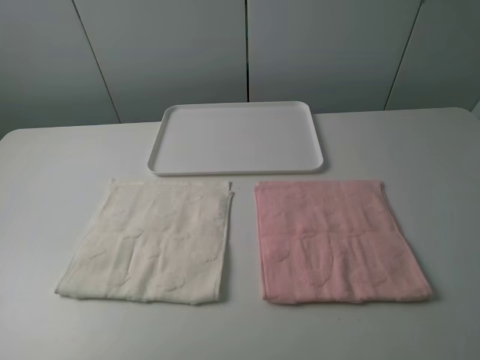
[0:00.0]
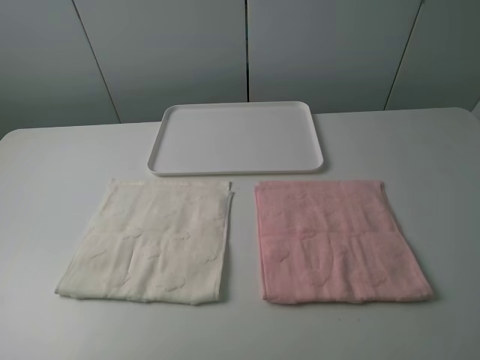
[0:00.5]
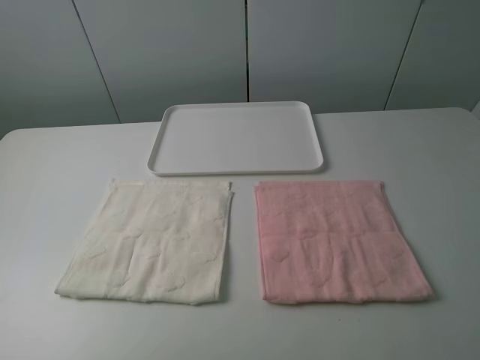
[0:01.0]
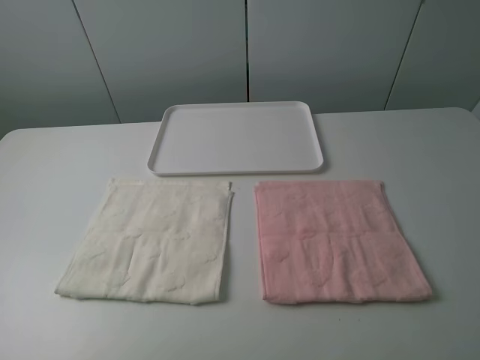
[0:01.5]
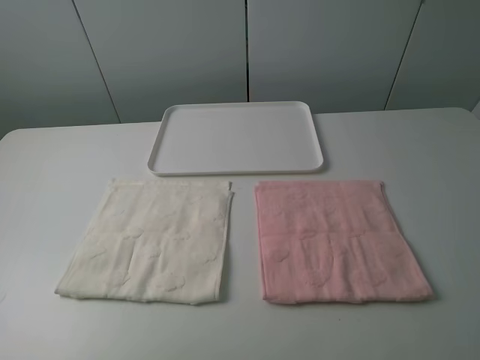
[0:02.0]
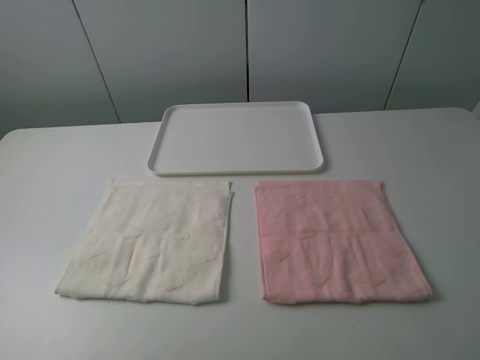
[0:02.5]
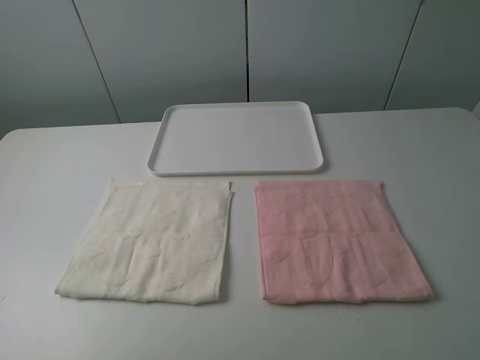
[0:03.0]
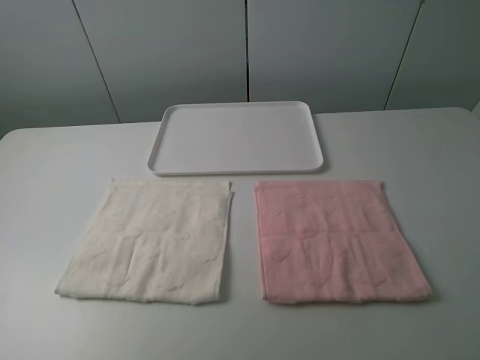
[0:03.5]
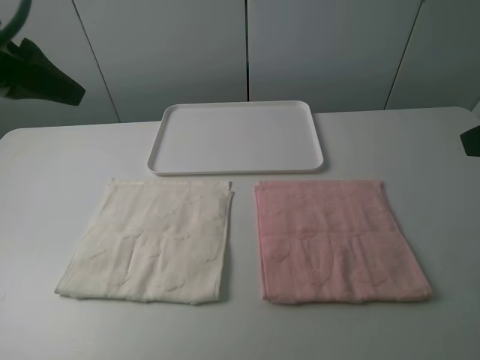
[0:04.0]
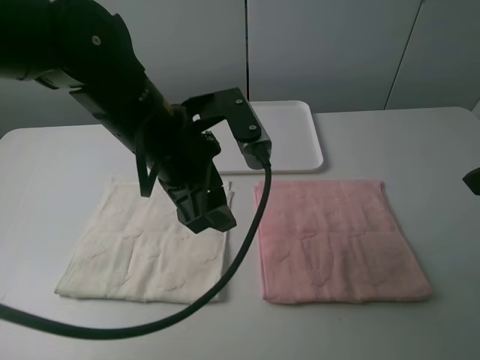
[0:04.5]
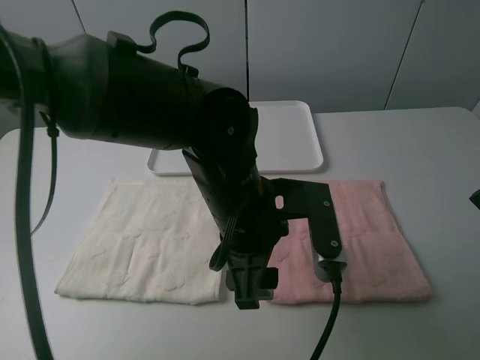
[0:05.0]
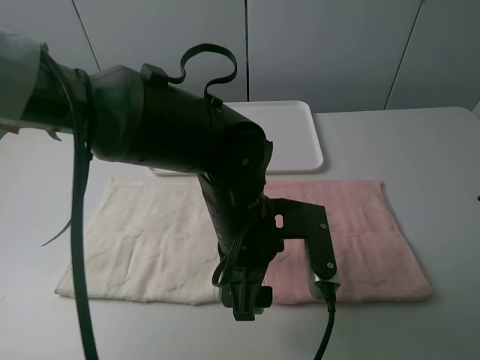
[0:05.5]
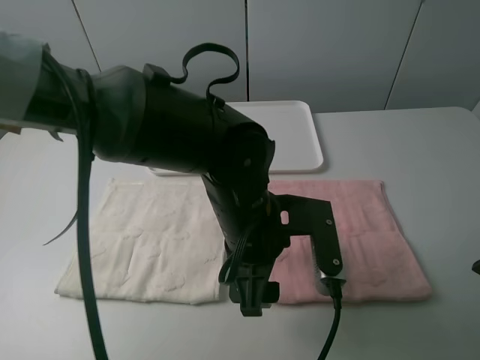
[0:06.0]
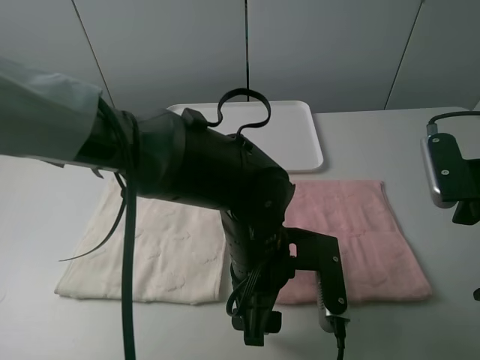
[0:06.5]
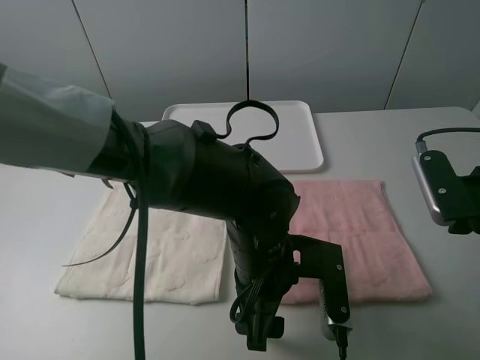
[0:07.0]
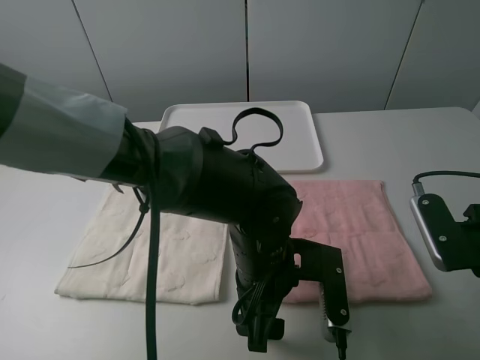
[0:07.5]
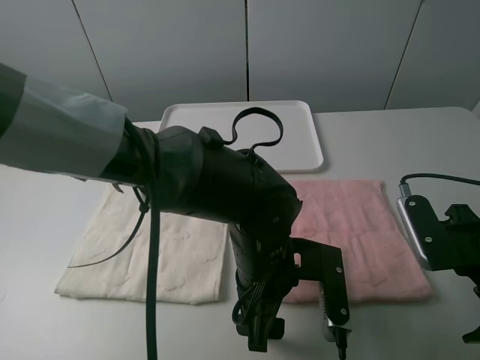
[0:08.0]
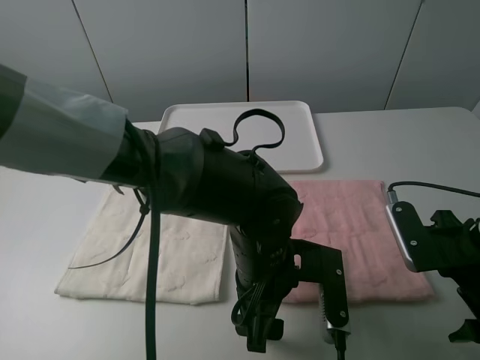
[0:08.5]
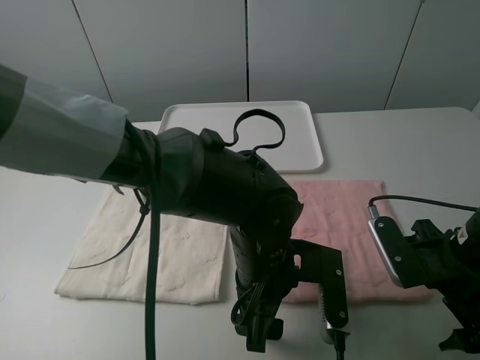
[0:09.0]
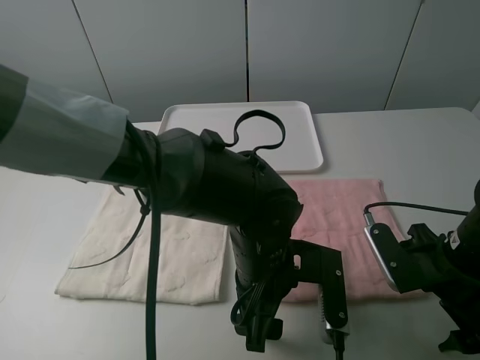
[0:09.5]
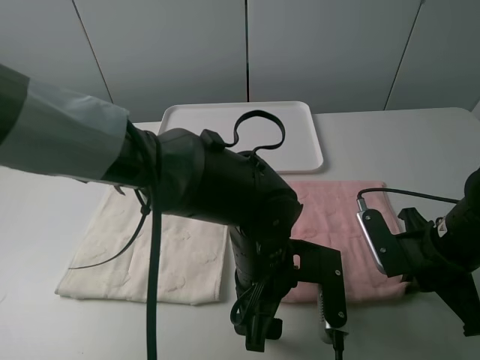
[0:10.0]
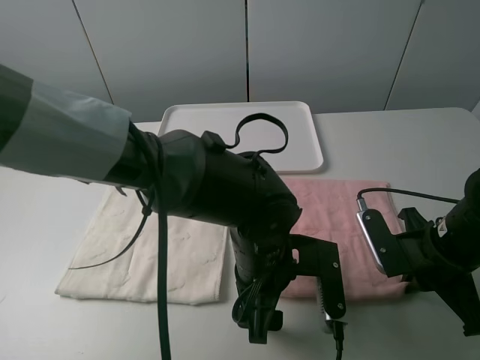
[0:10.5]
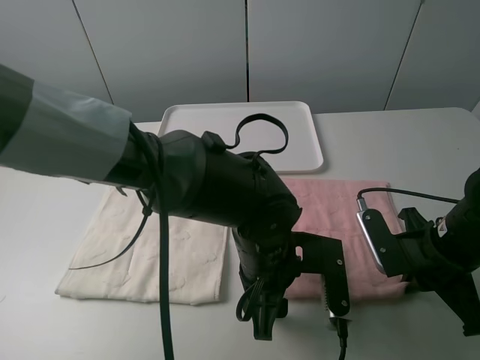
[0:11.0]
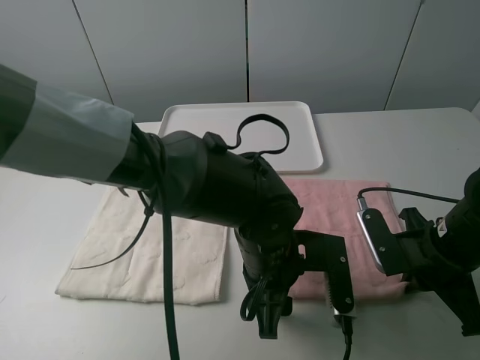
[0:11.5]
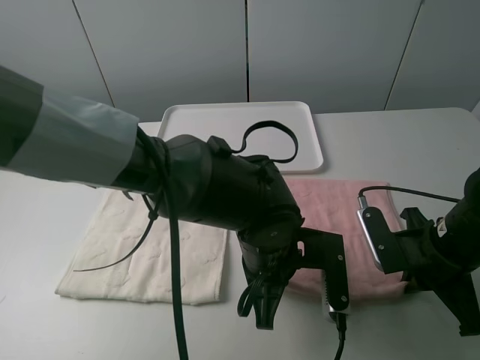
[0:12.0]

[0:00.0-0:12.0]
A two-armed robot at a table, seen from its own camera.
Task of the whole recording: fold one of the towels by two grippers and place it on the tray,then fold another towel by two grippers and place it on the folded towel.
Step, 0:00.0 to 0:11.5: Grasp the pink towel with the left gripper.
0:00.0 to 0:02.0: Both grippers stay about where they are.
0:02.0 to 0:04.0: The left gripper is displaced forward by approximately 25 cm.
0:04.0 to 0:06.0: The left gripper shifts approximately 30 cm to the right and downward. The right gripper heads downward, covering about 10 cm.
0:06.0 to 0:08.0: The right gripper travels downward by some 10 cm.
0:08.0 to 0:10.0: The right gripper moves downward, roughly 5 cm, and closes its fingers.
0:10.0 to 0:12.0: The left gripper closes up.

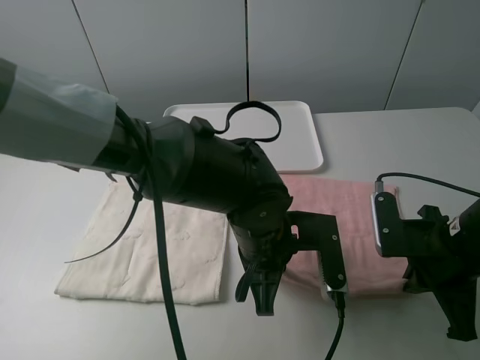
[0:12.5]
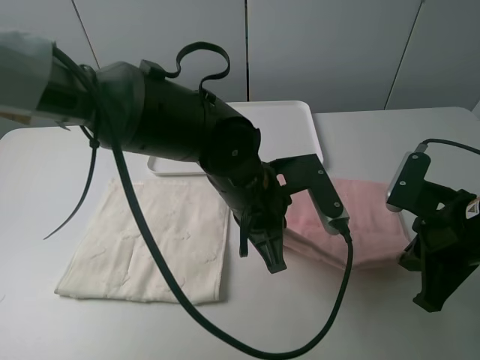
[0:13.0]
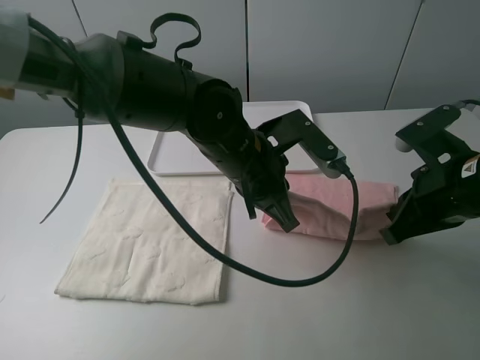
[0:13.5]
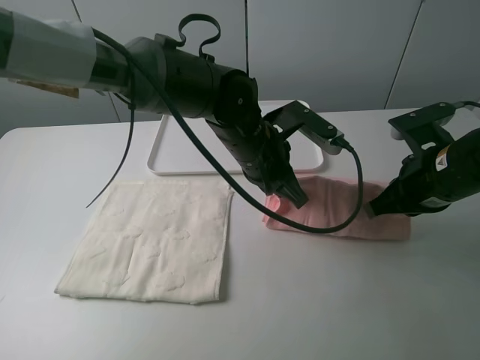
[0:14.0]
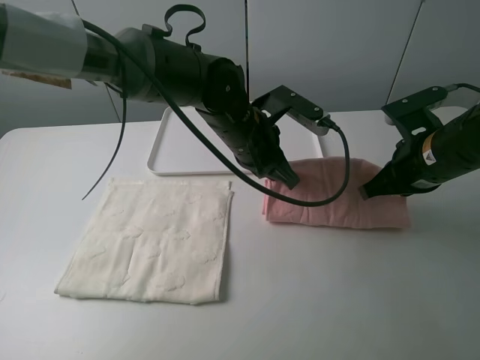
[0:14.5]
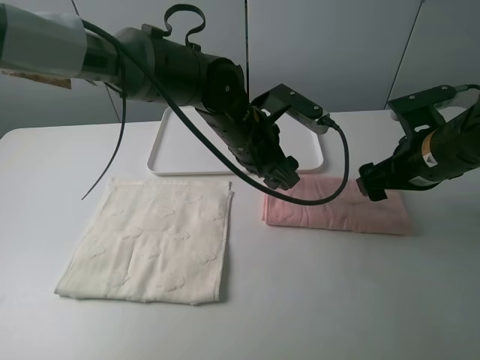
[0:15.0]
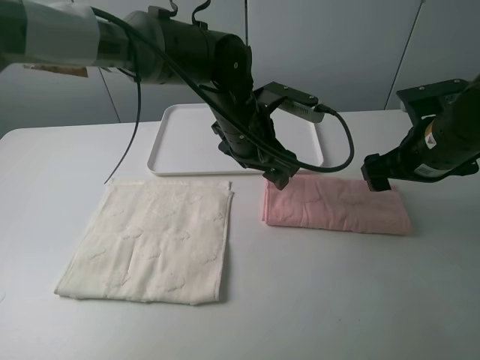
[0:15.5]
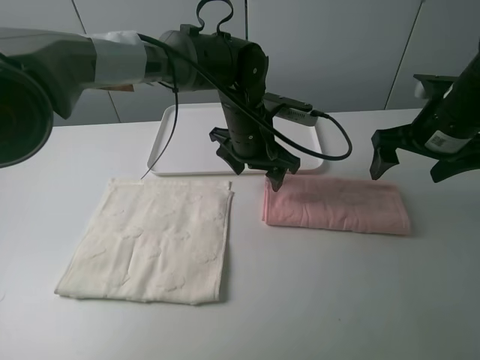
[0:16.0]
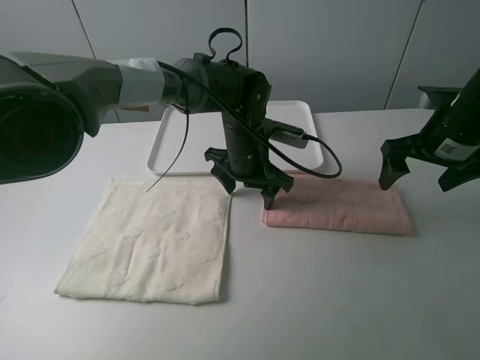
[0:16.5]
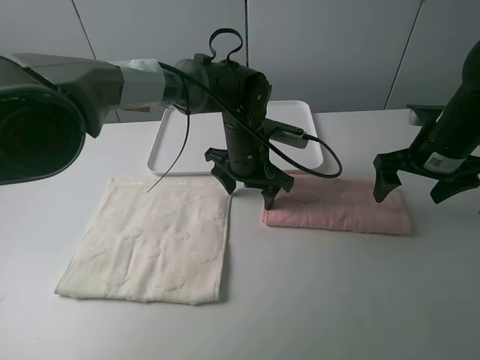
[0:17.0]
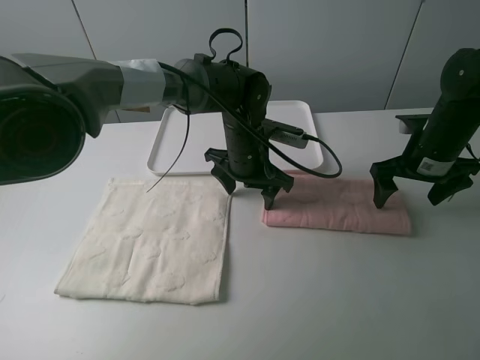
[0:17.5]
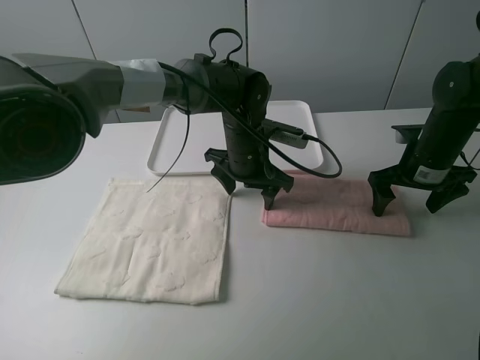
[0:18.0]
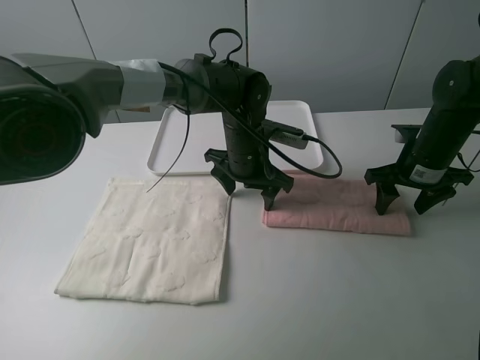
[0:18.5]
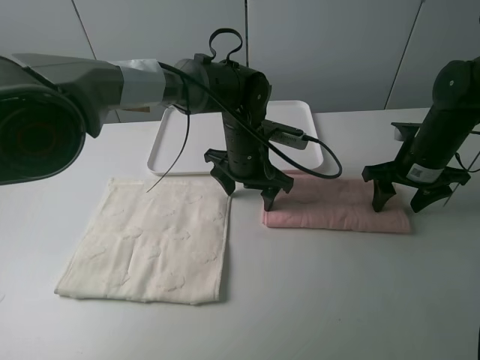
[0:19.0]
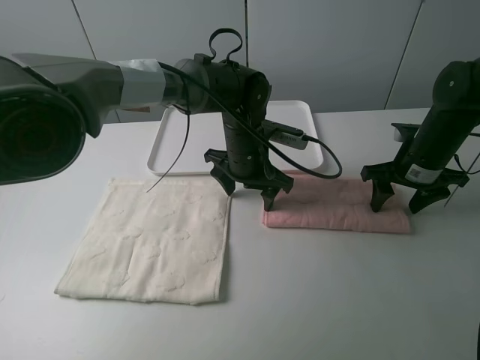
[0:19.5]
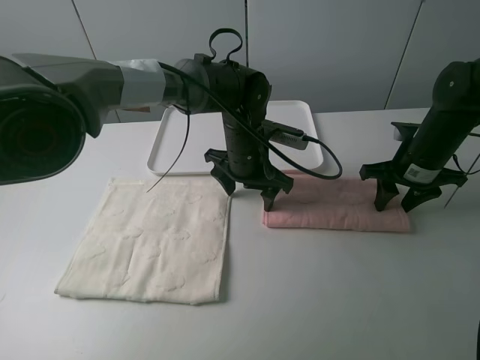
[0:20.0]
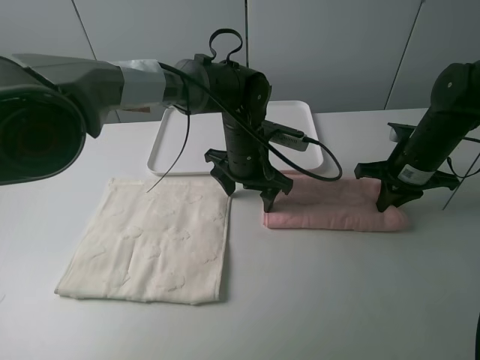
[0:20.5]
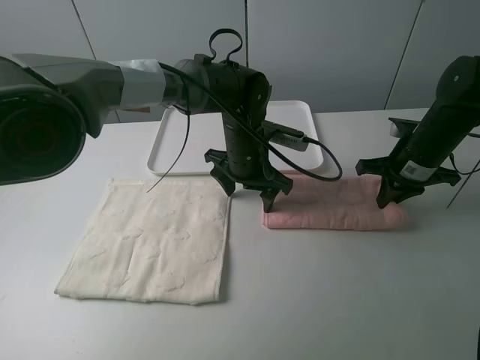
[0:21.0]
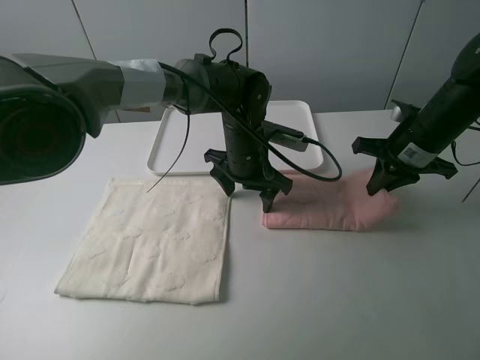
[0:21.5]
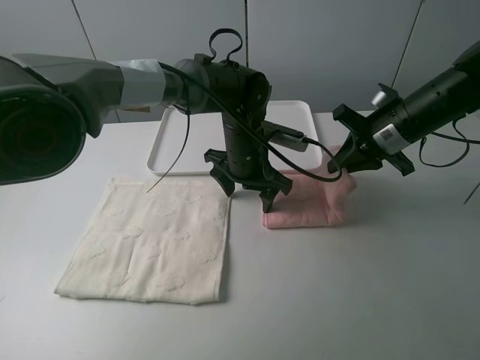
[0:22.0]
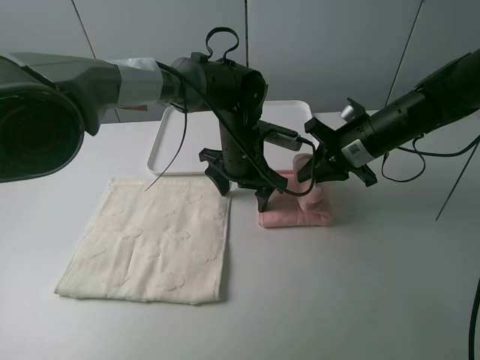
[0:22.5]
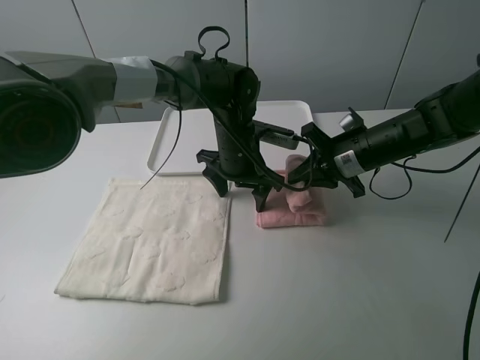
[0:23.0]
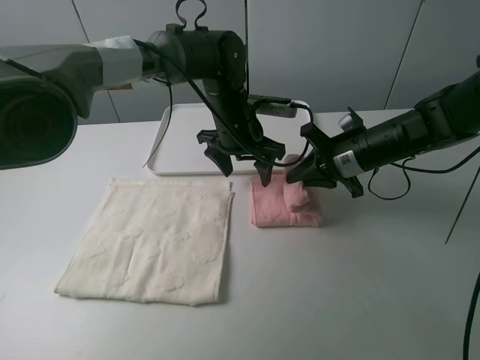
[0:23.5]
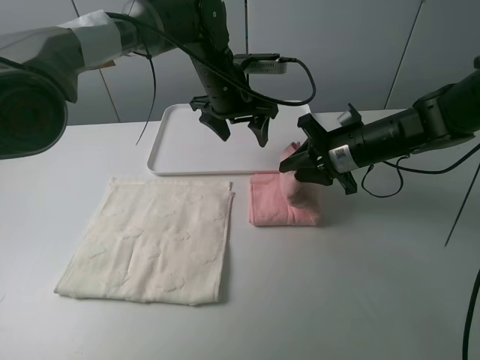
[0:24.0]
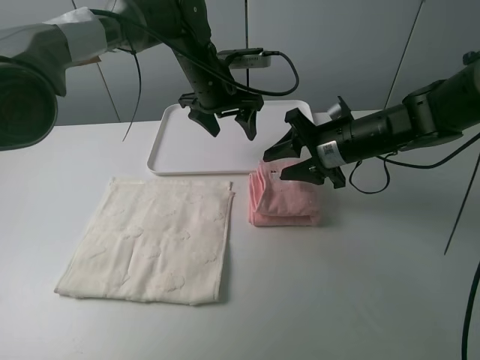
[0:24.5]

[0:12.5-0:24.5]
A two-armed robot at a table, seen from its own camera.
Task of the whole recording: fold one of the towels by two grippers and place it on the tray,then fold another towel by two grippers and place it on the folded towel.
Step, 0:12.5 to 0:15.0: Fold the pink towel upwards with the left gripper.
Step, 0:15.5 to 0:16.5: Press the pink towel with the left gripper.
Step, 0:17.0 to 0:20.5: Grasp the pink towel with the right gripper.
Step, 0:21.0 to 0:24.0: Fold the pink towel from right to left with right gripper.
0:12.5 to 0:14.5: Both grippers move forward, approximately 10 cm.
0:14.5 to 0:16.5: The right gripper shifts by some 5 cm, and opens. Meanwhile the left gripper moves some 5 cm, and opens.
0:16.5 to 0:18.5: The right gripper heads downward, covering about 5 cm.
0:18.5 to 0:20.5: The right gripper closes its fingers.
0:20.5 to 0:22.5: The right gripper shifts some 10 cm to the left.
0:22.5 to 0:24.5: The right gripper opens its fingers, while the left gripper is displaced forward, upward and to the left by some 15 cm.

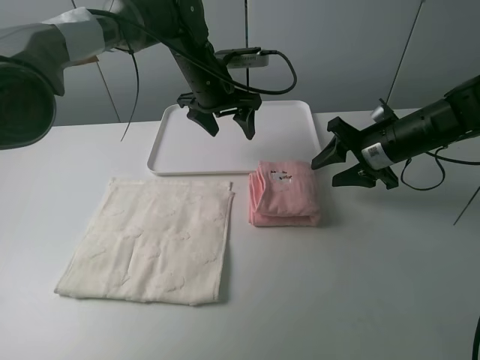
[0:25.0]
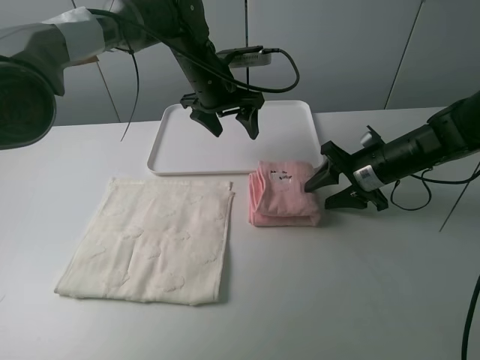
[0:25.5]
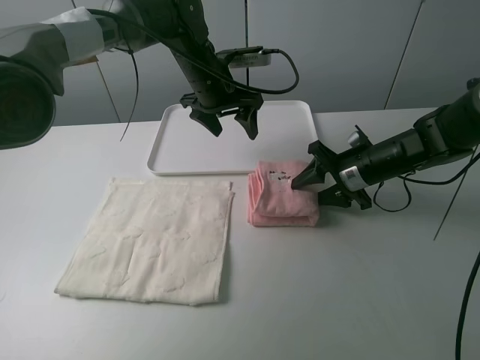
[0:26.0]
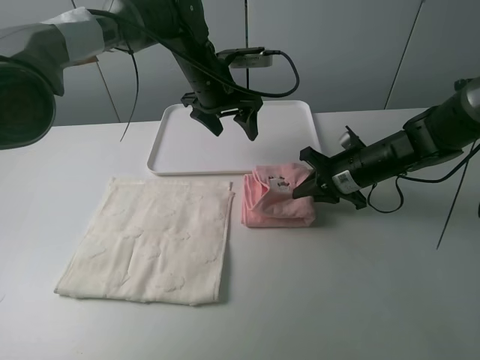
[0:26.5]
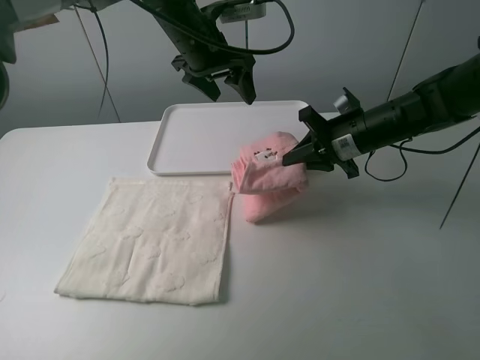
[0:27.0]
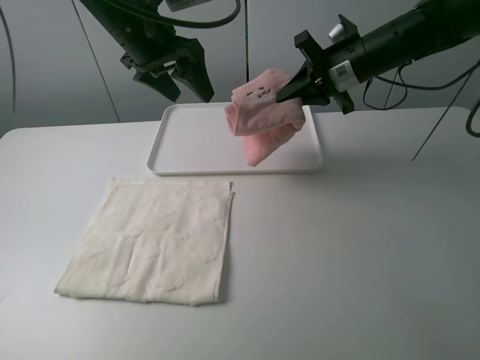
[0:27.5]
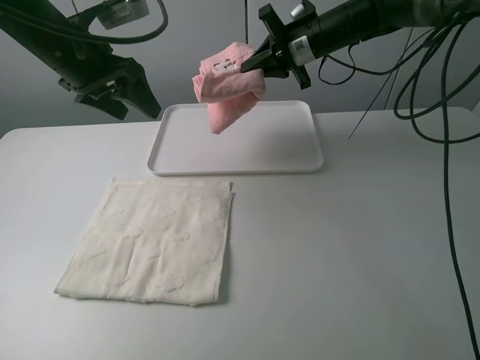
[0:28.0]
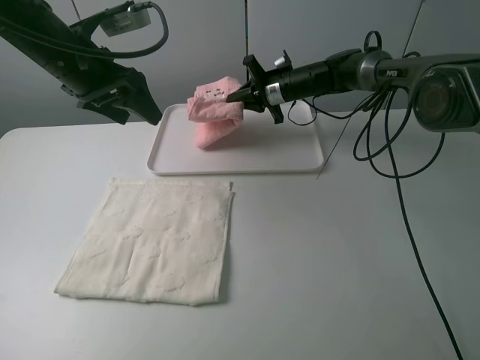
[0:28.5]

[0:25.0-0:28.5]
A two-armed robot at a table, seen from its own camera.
Task of the whole recording: fold one of the towels by two grippers and place it on the tray,then fold another towel by two grippers and place it on the folded towel.
Step, 0:25.0 to 0:26.0: Grasp the pink towel with the right gripper.
0:25.0 to 0:27.0: The right gripper ends up some 5 cm from where it was, and closes. The left gripper moves upward, roughly 5 cm.
0:27.0 to 0:28.5: The right gripper heads forward and to the left, covering some 20 cm. Meanwhile the left gripper heads to the left and backward, covering approximately 15 cm.
